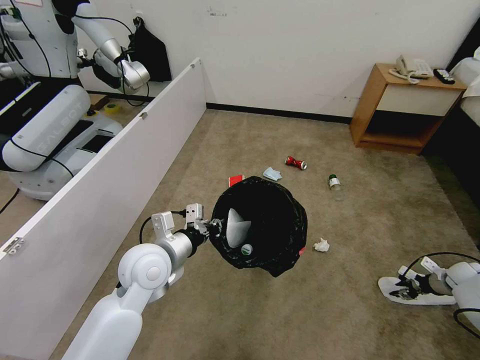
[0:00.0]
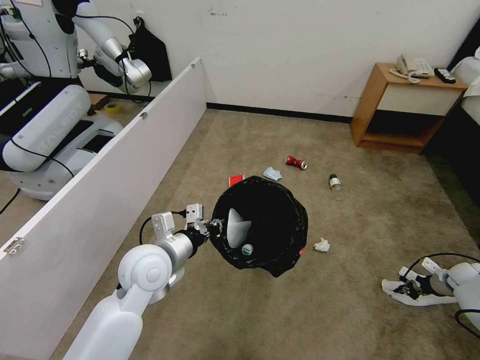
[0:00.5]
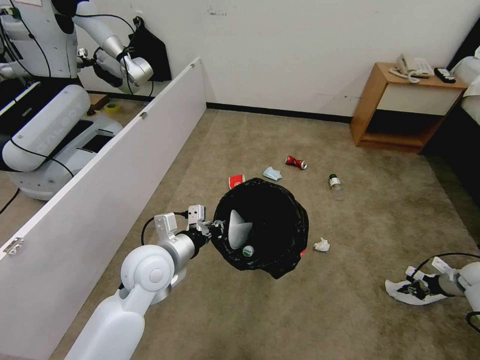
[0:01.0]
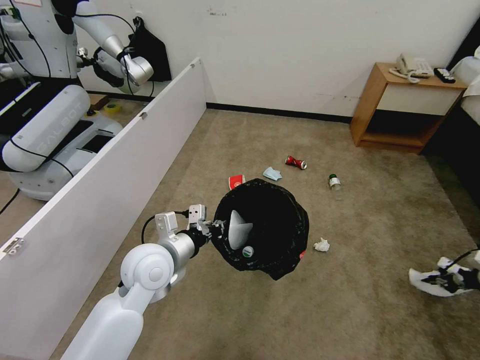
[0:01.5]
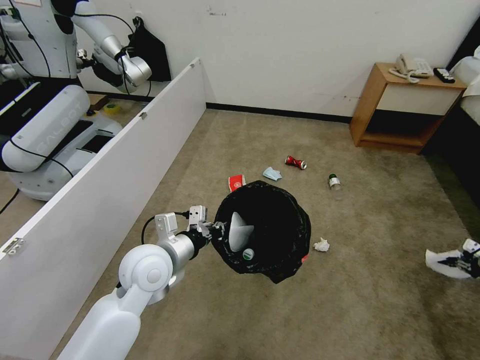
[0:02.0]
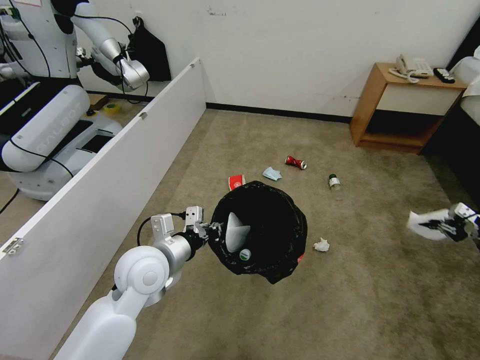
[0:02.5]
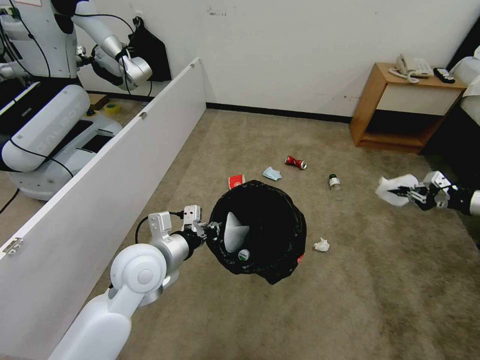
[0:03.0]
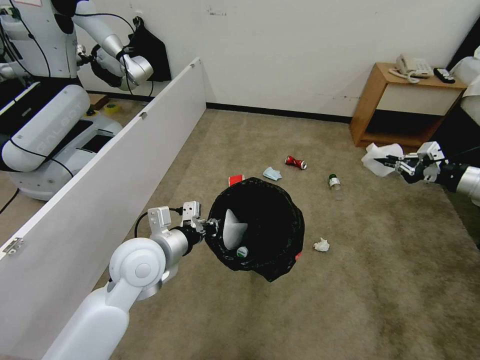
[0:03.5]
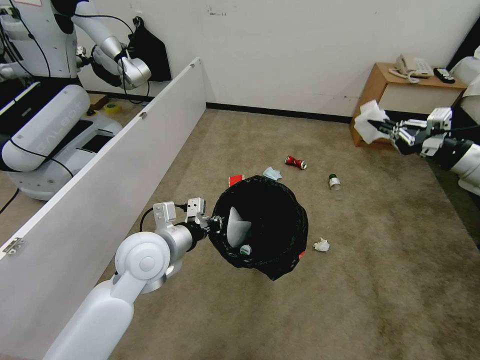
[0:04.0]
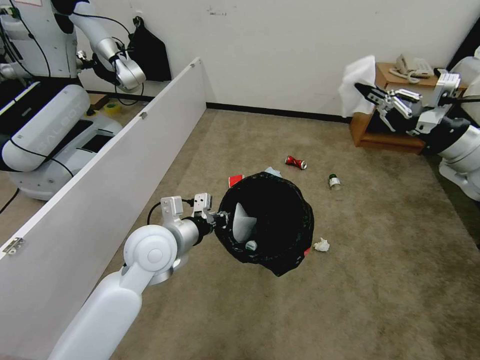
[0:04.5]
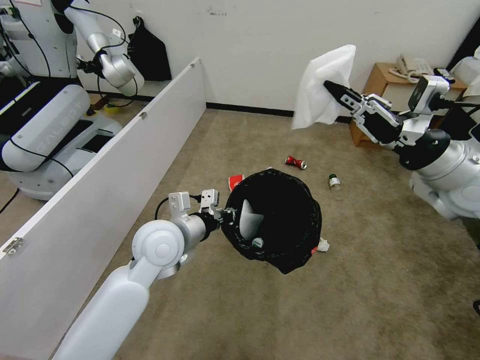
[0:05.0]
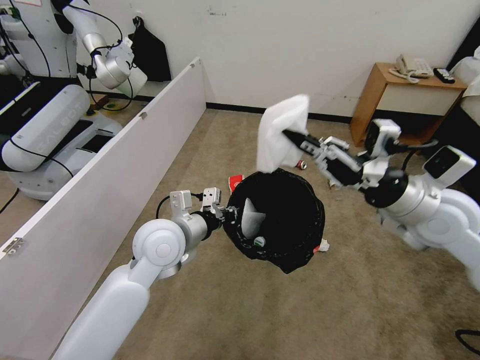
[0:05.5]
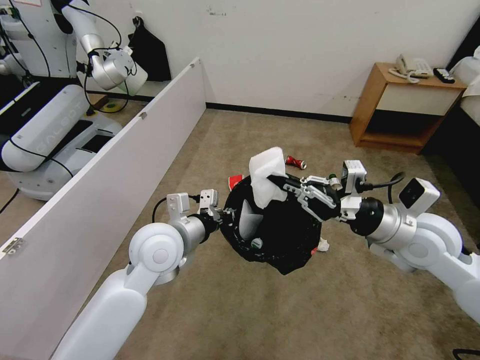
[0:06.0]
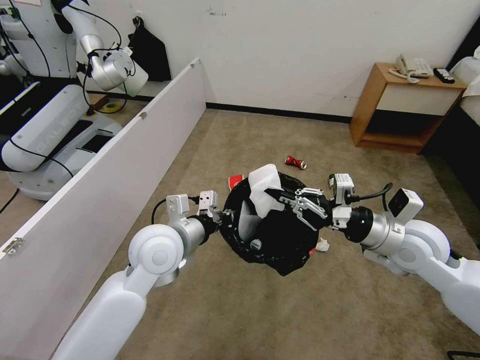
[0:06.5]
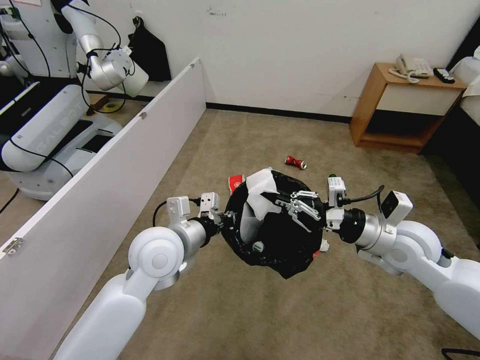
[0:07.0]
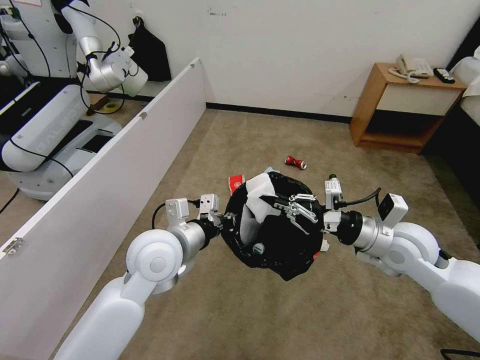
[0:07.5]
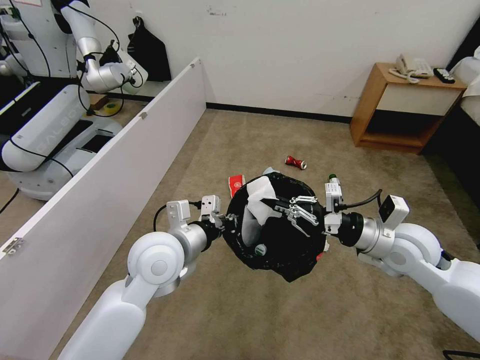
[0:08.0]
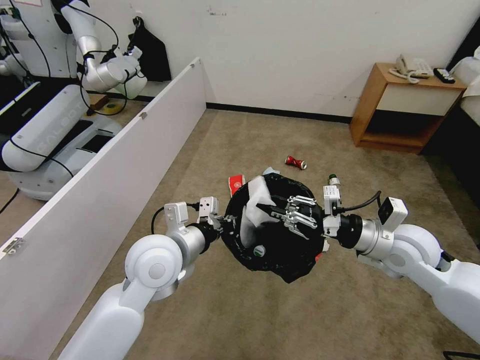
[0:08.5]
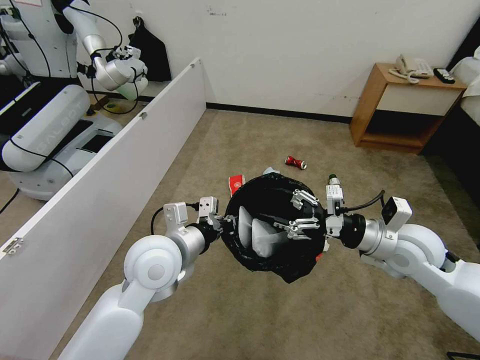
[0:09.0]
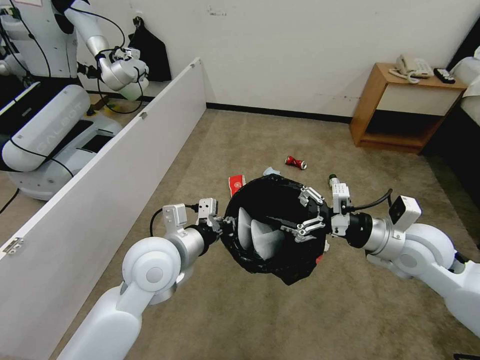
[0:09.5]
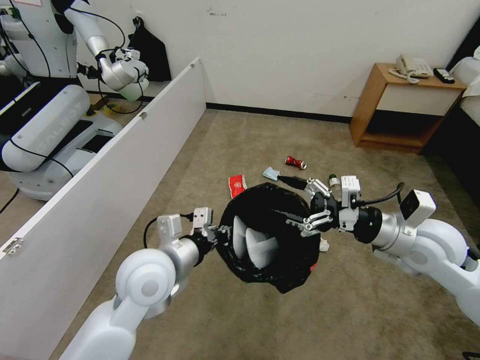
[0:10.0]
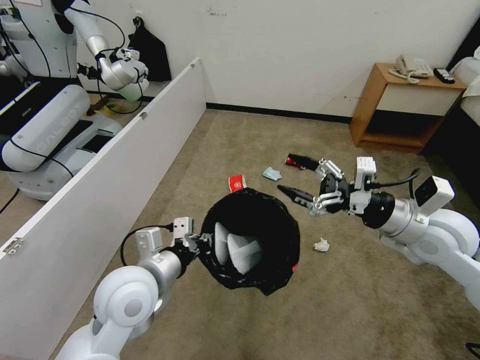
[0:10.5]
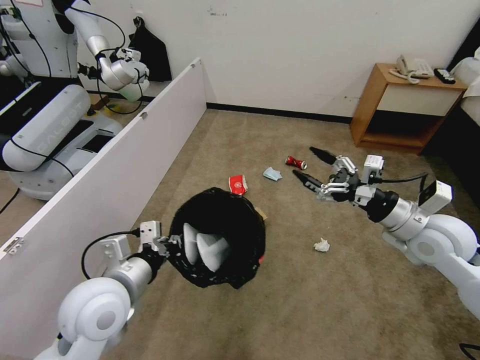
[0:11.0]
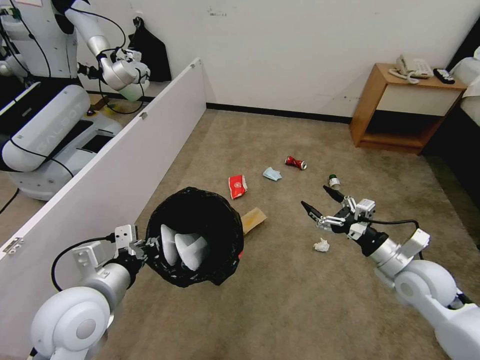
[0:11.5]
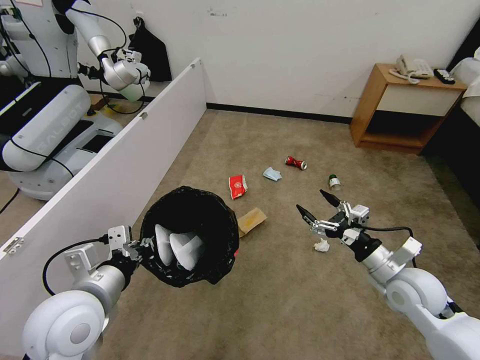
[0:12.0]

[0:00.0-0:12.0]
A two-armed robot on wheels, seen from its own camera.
Task of the whole recording: Pick up the trash bin and place the garbage on the floor into it.
0:00.0 to 0:02.0: The right gripper is displaced upward and to the right by some 20 cm, and closes.
0:02.0 to 0:04.0: The right gripper is displaced to the left and upward by about 30 cm.
0:04.0 to 0:06.0: The right gripper heads to the left and backward, covering roughly 25 cm.
0:06.0 to 0:08.0: The grippers move only a little.
0:08.0 to 0:10.0: The right gripper opens its fingers.
0:10.0 to 0:12.0: The right gripper moves downward, about 10 cm. The left gripper moves to the left and backward, approximately 10 cm.

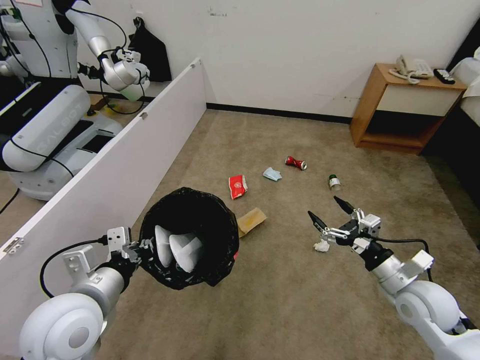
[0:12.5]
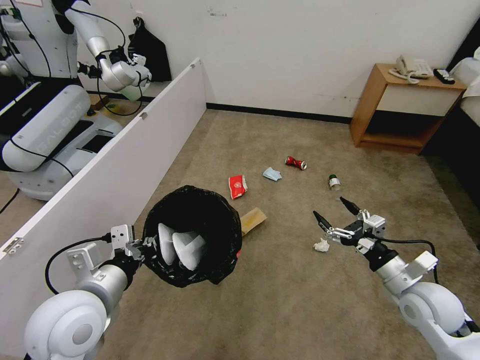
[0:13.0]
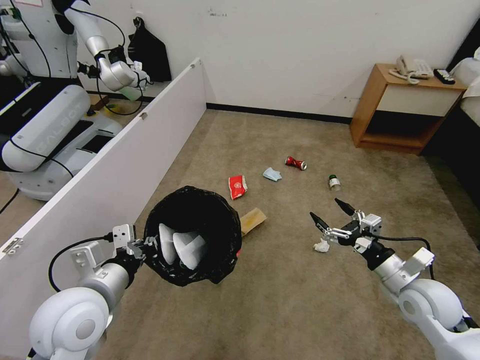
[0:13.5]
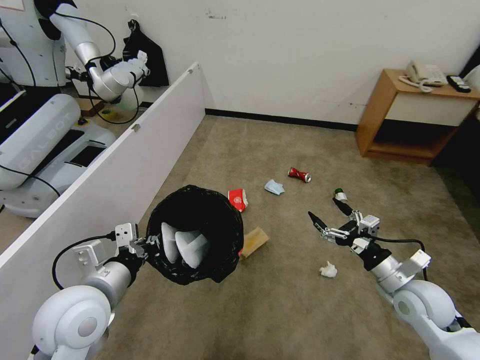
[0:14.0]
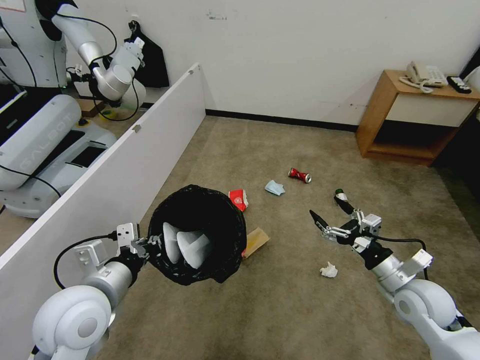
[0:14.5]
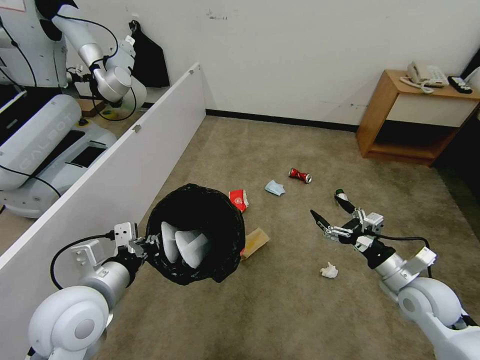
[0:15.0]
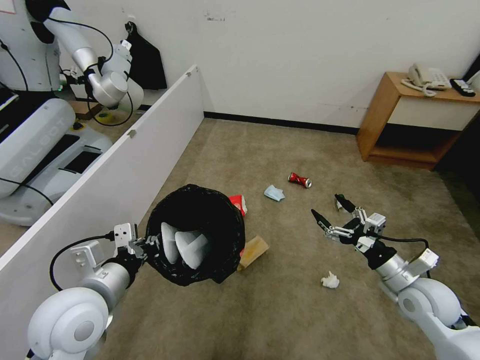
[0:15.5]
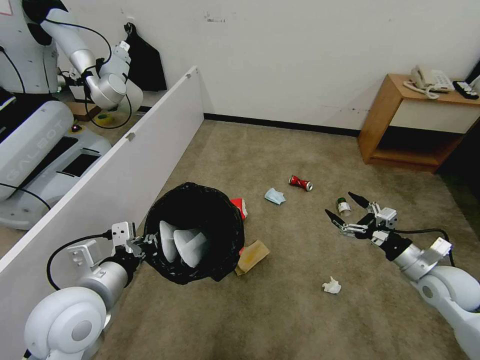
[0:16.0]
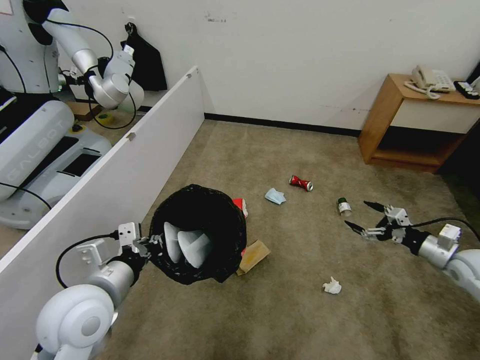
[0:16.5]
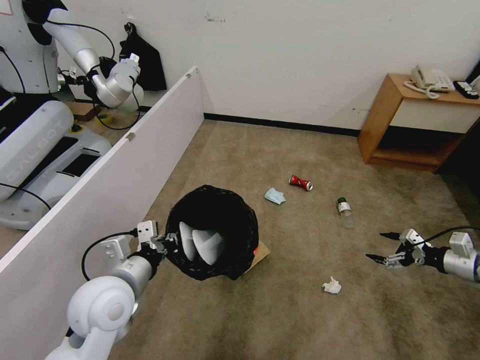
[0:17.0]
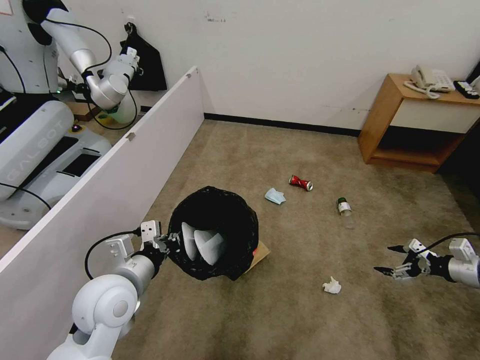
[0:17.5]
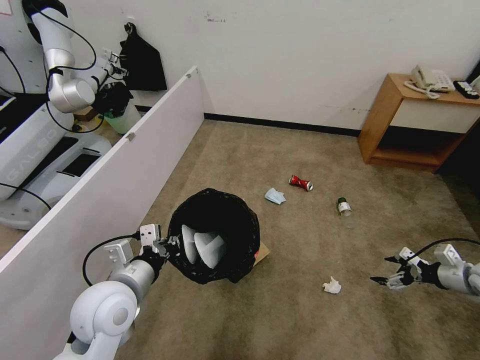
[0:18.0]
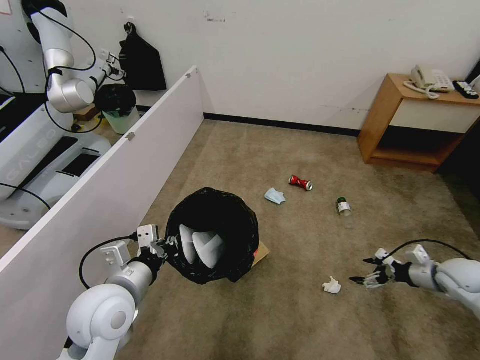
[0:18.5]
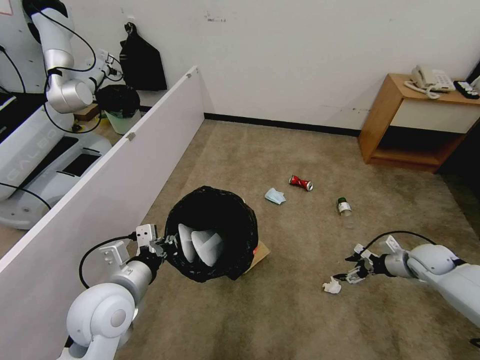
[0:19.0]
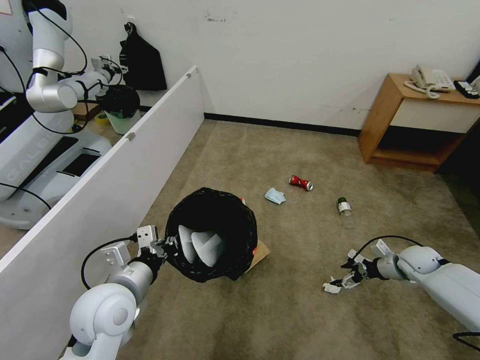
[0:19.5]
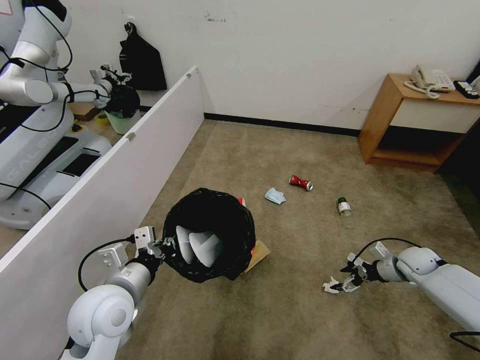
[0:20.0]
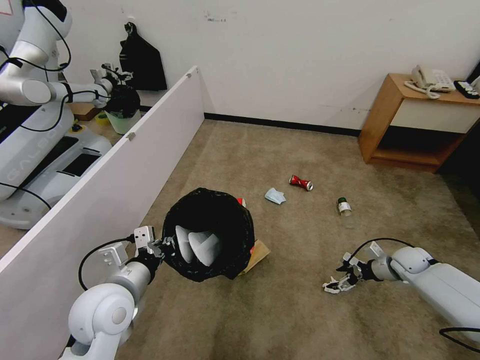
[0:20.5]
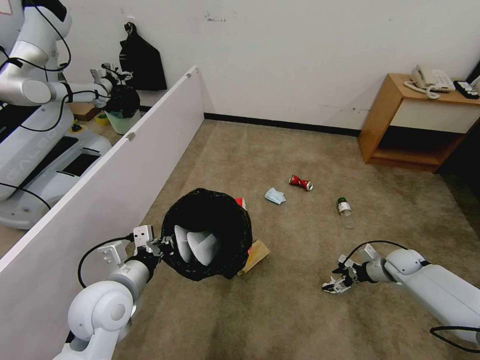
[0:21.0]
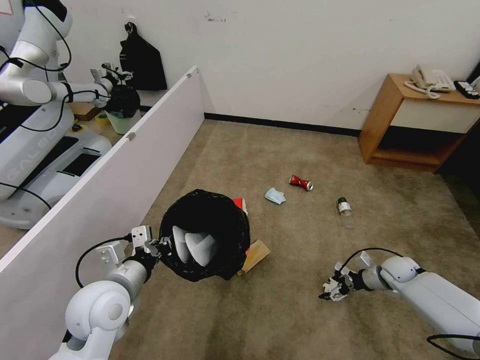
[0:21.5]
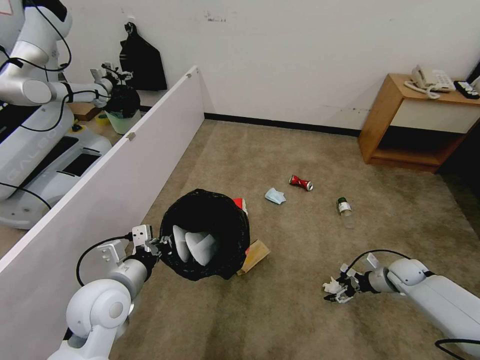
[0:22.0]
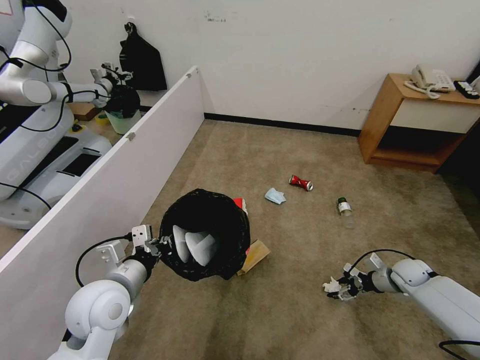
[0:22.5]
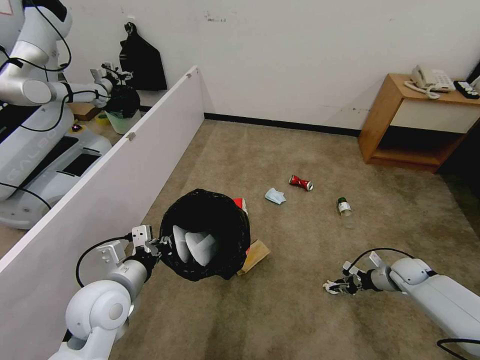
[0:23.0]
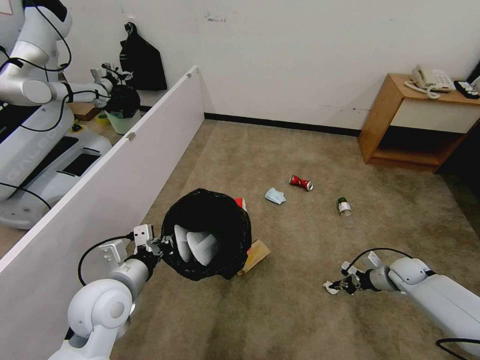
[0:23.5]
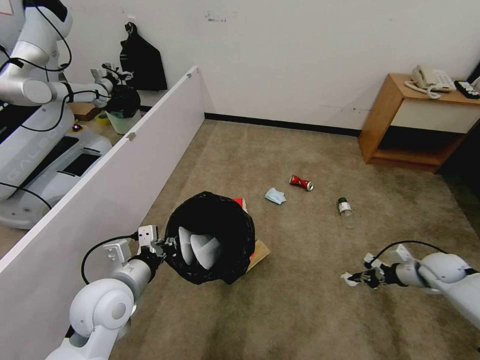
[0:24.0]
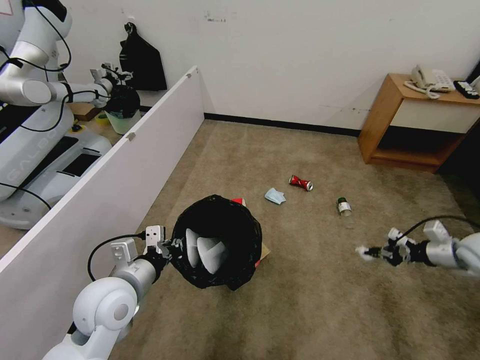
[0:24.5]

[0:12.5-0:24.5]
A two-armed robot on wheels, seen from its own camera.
Task of the whole recording: Pick up the trash bin and place the garbage on the floor into it.
0:14.5 to 0:16.5: The right gripper goes roughly 15 cm to the right.
0:16.5 to 0:18.5: The right gripper shifts about 5 cm downward.
0:18.5 to 0:20.5: The right gripper moves forward and downward, approximately 10 cm.
0:20.5 to 0:22.5: The grippers make only small movements.
0:22.5 to 0:24.5: The right gripper travels upward by approximately 15 cm, and closes up.

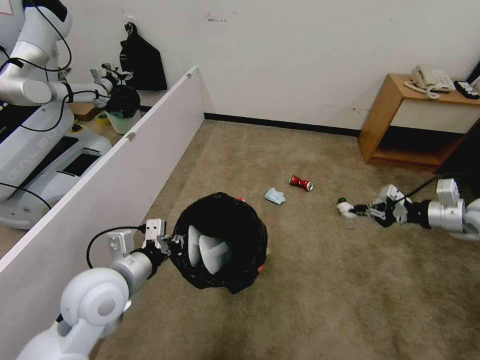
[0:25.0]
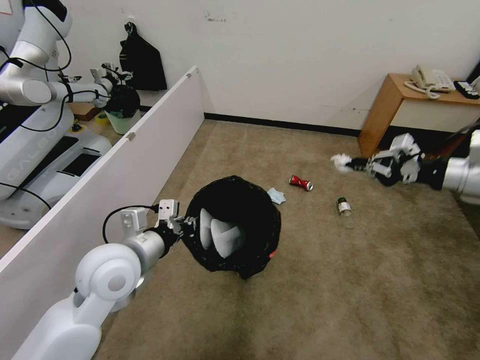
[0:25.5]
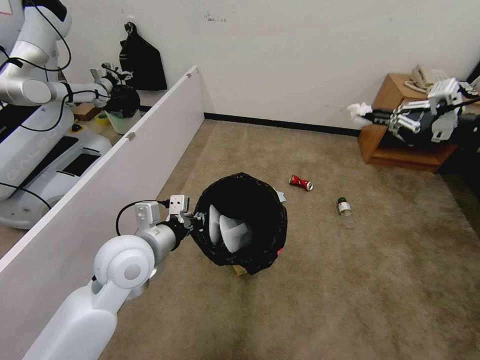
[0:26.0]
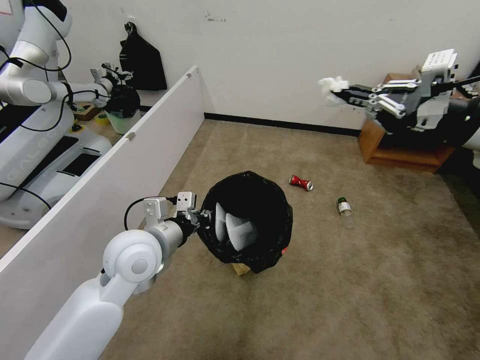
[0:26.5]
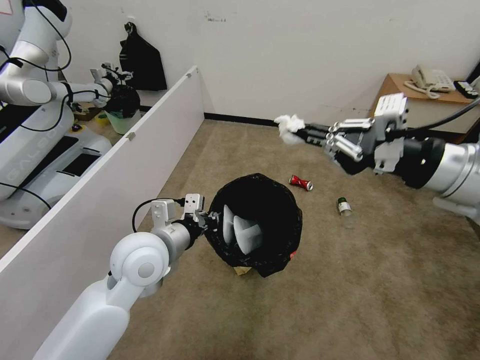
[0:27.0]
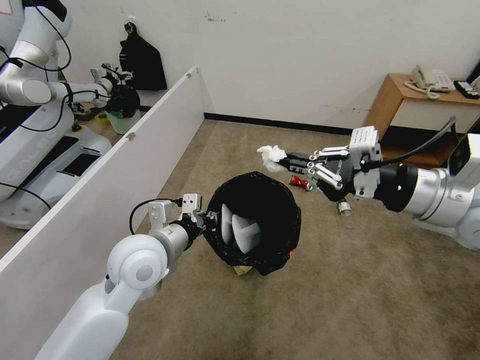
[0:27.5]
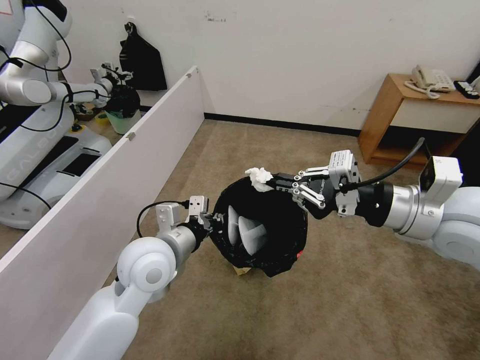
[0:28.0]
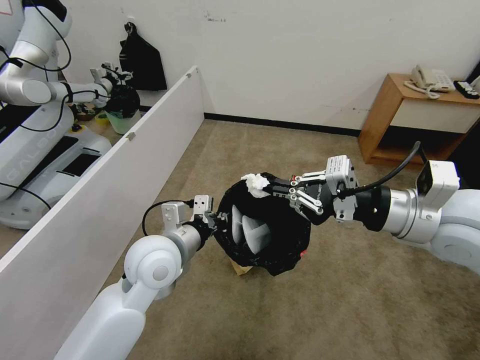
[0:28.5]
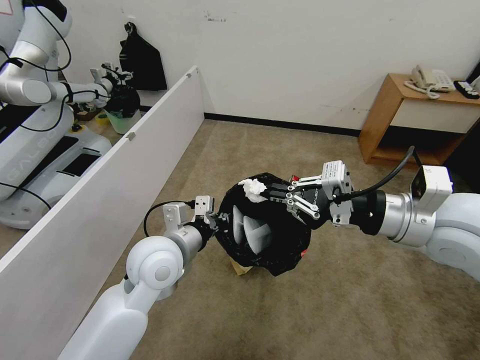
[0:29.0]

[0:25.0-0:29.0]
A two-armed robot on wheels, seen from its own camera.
Task of the whole recording: Pick up the trash bin and place the garbage on the floor into it.
0:25.0 to 0:27.0: The left gripper is displaced to the right and forward by some 10 cm, while the right gripper moves to the left, upward and backward, some 25 cm.
0:27.0 to 0:29.0: The right gripper heads downward, covering about 5 cm.
